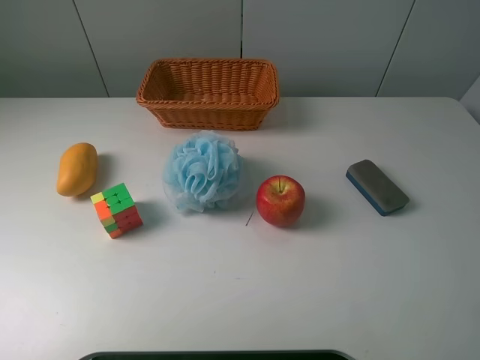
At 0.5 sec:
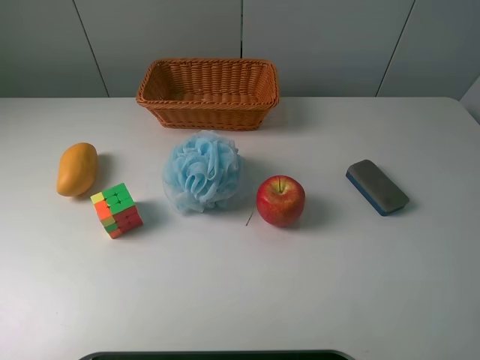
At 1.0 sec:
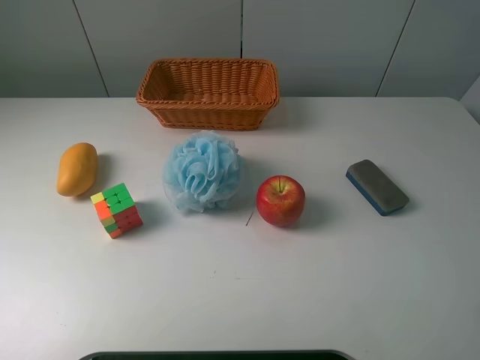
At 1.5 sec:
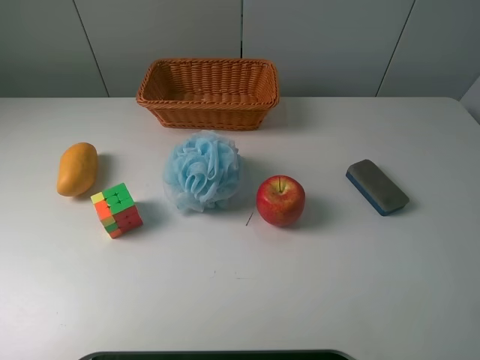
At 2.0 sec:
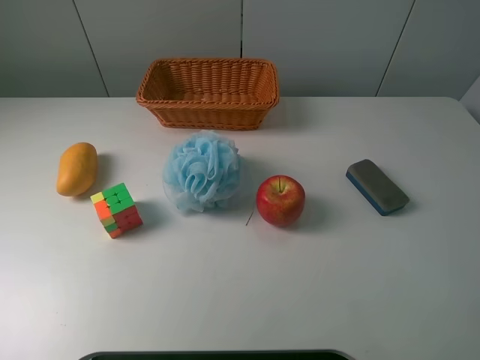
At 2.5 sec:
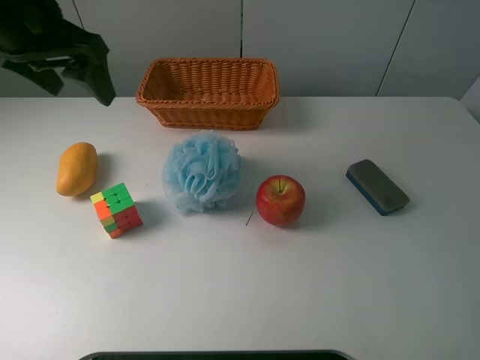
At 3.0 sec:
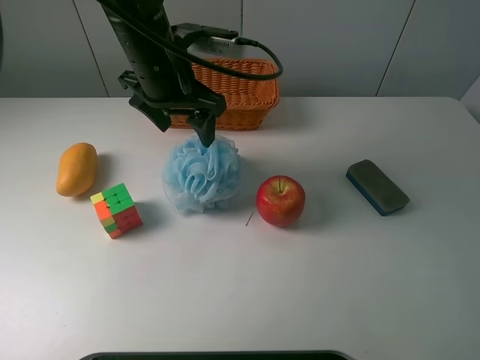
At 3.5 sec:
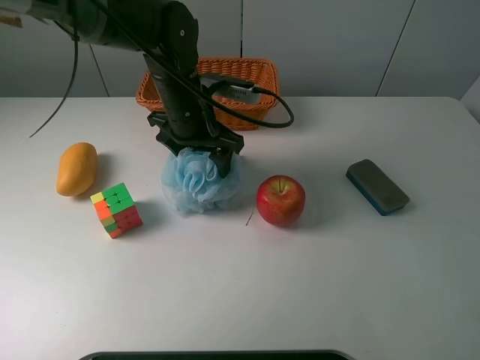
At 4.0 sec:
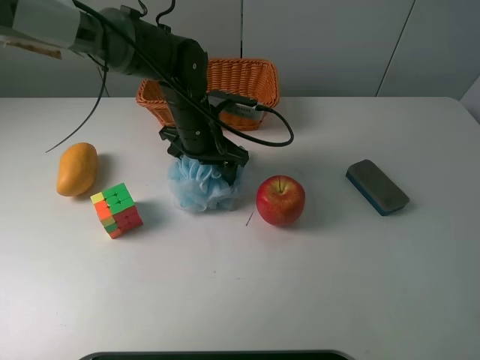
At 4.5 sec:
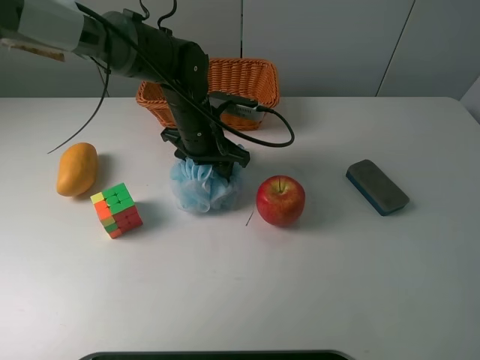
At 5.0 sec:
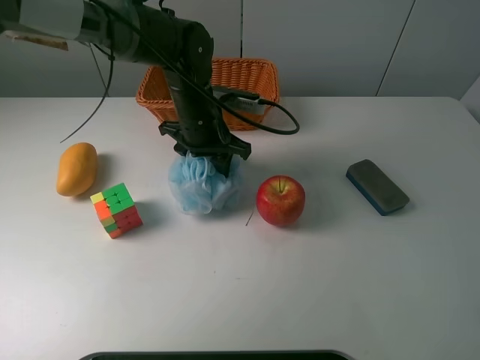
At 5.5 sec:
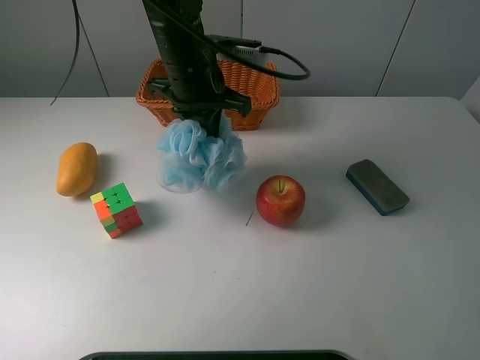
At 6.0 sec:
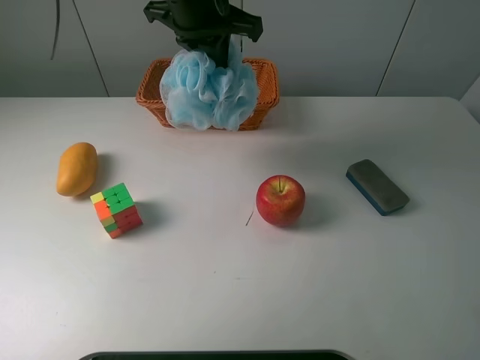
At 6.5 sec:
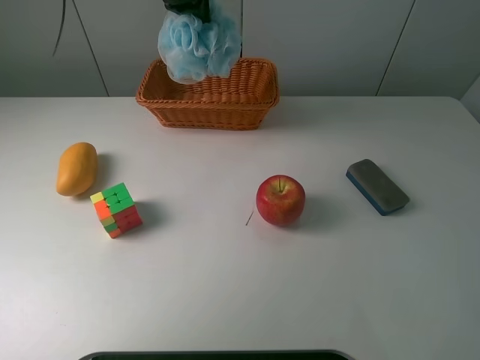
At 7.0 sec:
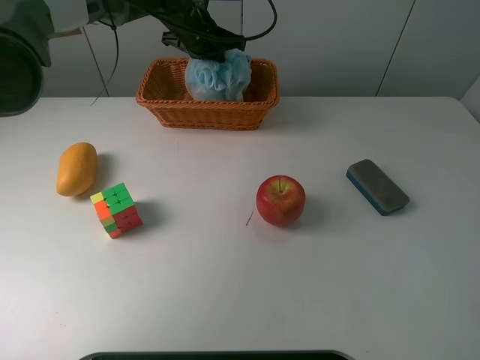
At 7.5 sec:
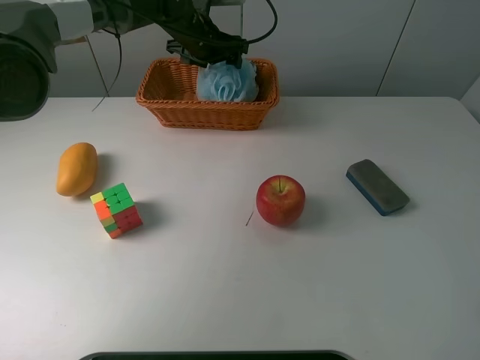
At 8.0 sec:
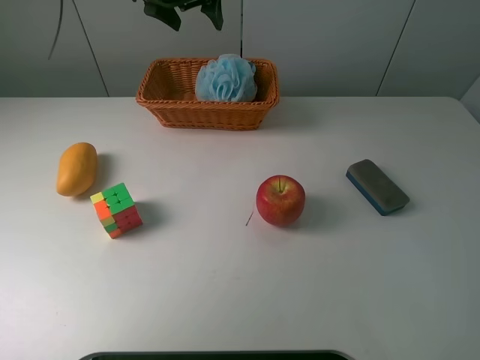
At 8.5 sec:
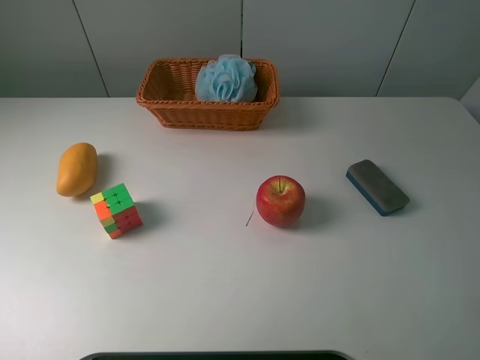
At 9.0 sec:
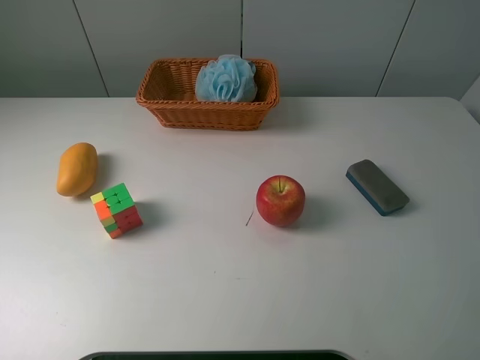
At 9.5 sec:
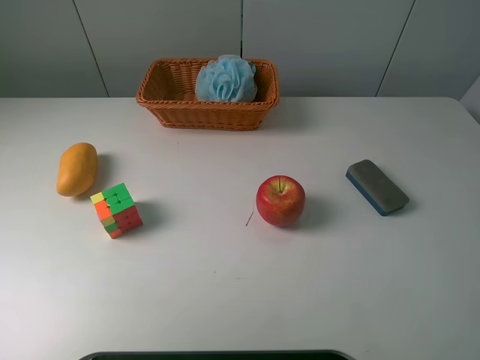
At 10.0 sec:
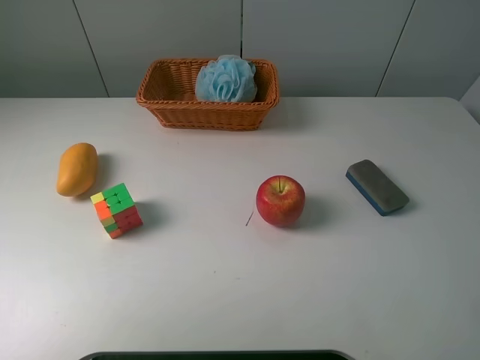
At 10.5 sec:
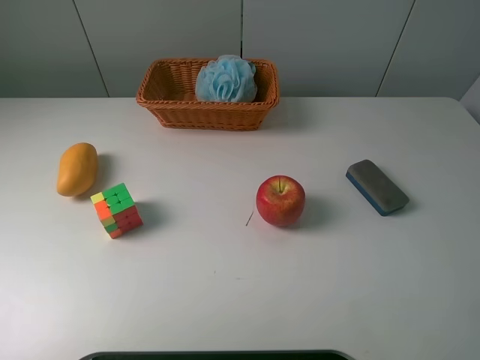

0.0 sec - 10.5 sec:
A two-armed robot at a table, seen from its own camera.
Task of the whole recording: use a picker to grab the item closest to the apple and place it in the basket.
Step, 0.0 sec - 4.5 sec: Grasp the shower sphere with the left gripper.
Step, 5.0 sec - 7.5 sec: Place the shower sphere into the basket with the left gripper.
2.0 sec - 4.0 sec: The left gripper shifts some 40 cm to the right, downward and forward.
4.0 sec - 6.5 sec: The left gripper heads upward and forward, covering roughly 20 cm, and closes its fingers.
6.5 sec - 8.5 sec: The left gripper shifts about 20 cm backward, upward and to the left, and opens.

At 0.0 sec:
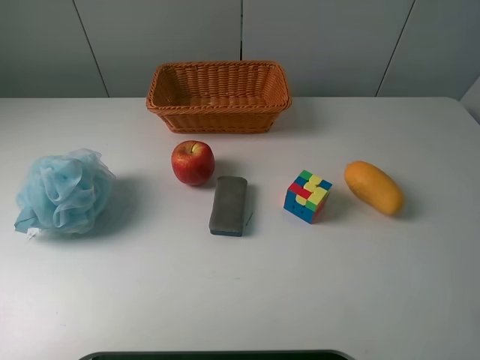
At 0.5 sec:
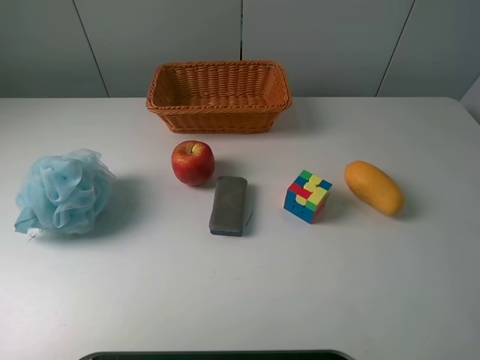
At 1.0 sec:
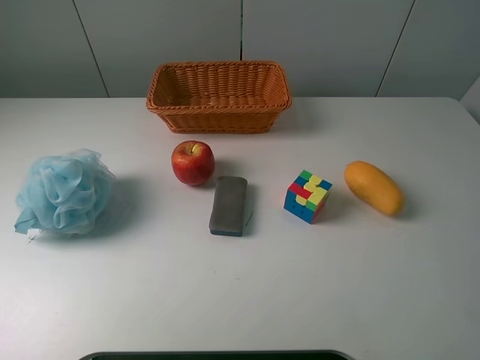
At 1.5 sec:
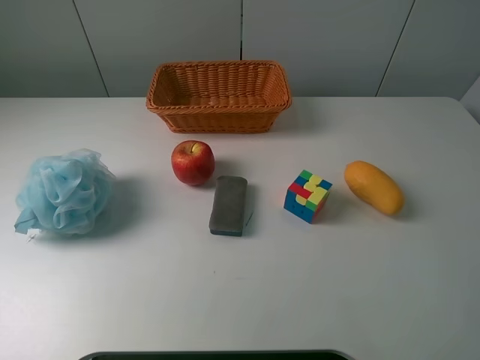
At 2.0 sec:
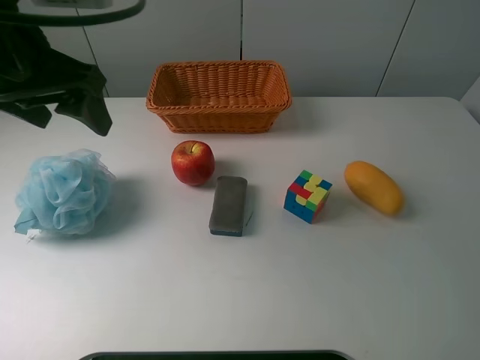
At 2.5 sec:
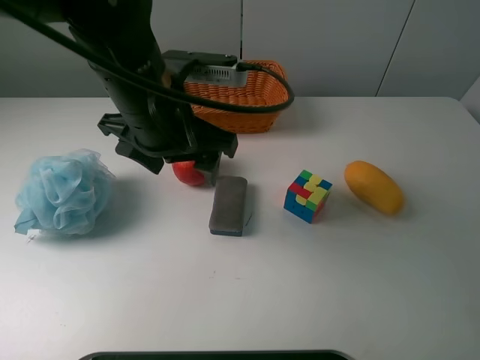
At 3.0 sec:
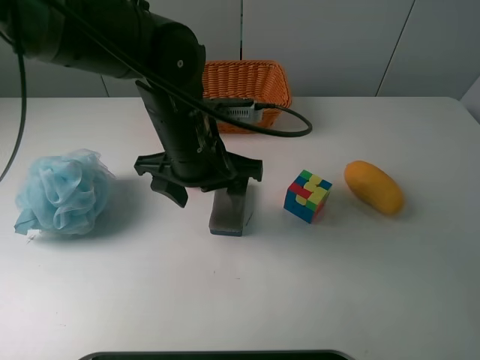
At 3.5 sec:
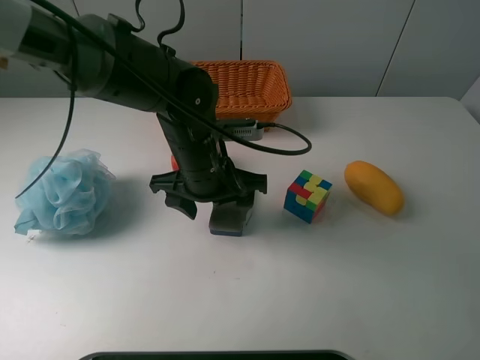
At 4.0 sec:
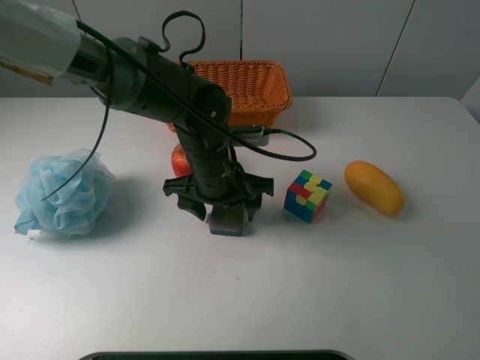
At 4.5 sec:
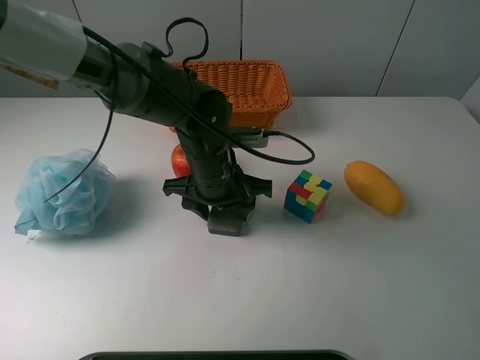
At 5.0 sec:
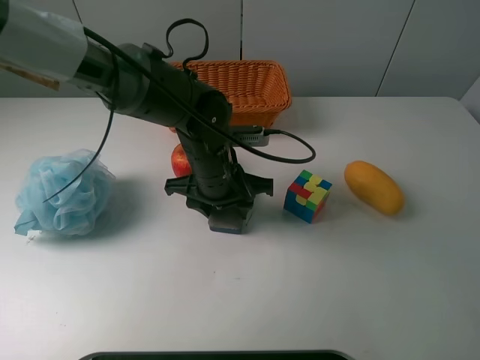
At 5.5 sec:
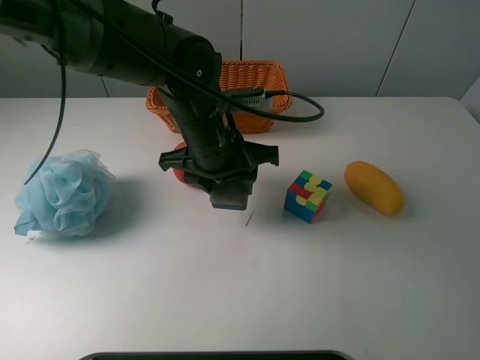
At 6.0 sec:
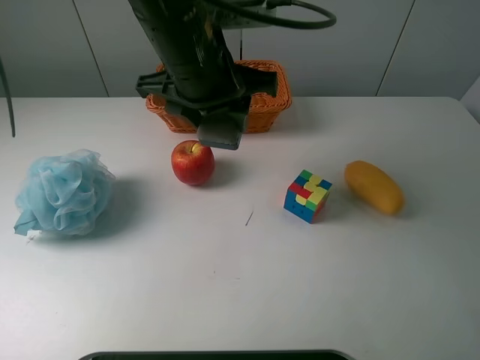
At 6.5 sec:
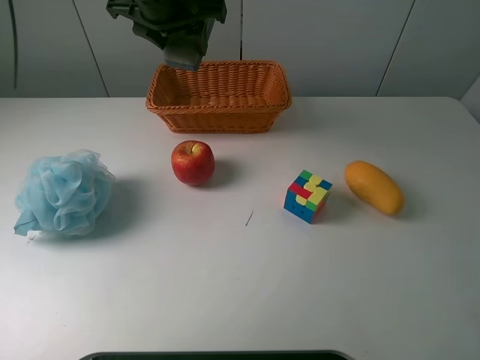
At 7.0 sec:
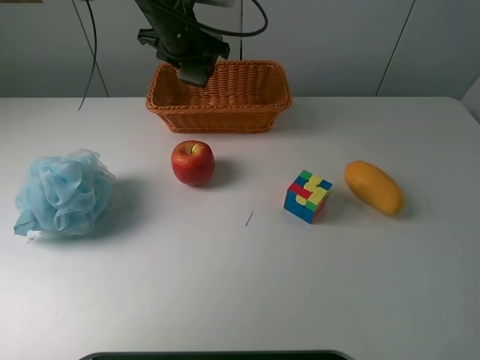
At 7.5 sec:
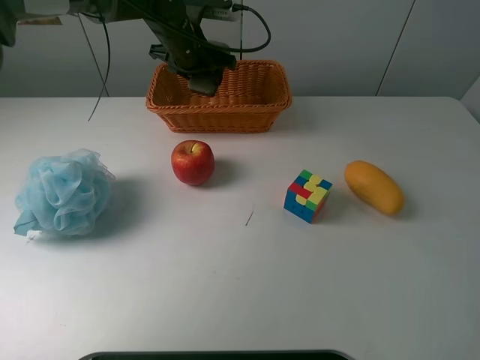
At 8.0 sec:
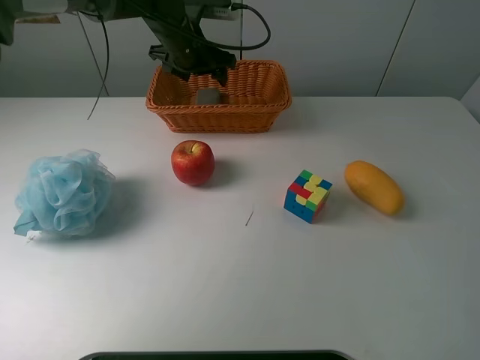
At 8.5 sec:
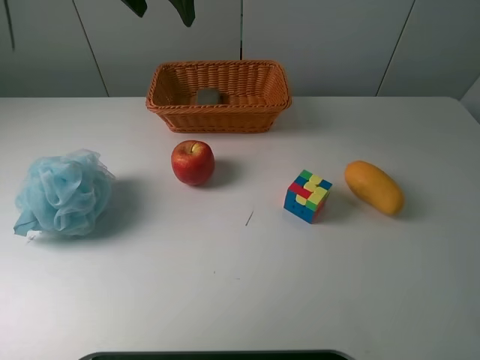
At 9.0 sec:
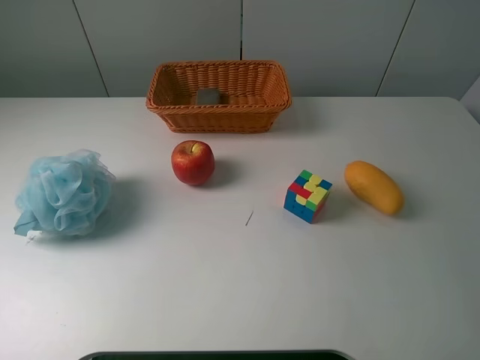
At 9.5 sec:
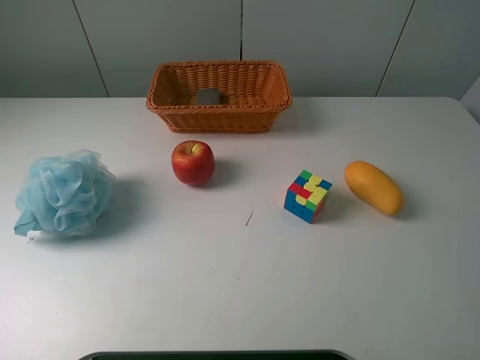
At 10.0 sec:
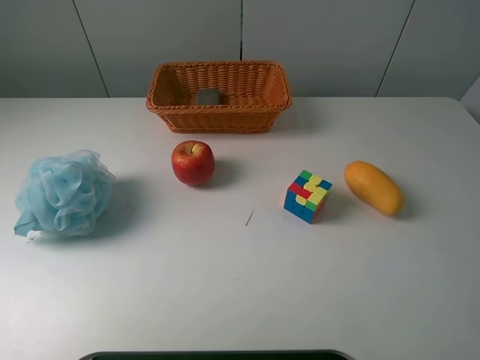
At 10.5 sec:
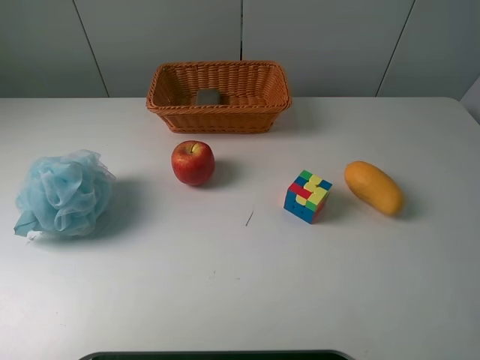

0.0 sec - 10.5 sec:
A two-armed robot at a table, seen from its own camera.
Task of the whole recording: use a picker to grab the item closest to the apple and place it in the basket.
Step, 0.0 sec - 4.5 sec: Grasp the chalkboard eraser with the left gripper.
Step, 5.0 sec - 8.0 sec: Place the chalkboard eraser into the basket with the left gripper.
0.0 sec - 2.0 sec: The left gripper goes about 30 cm forward and to the right.
2.0 sec - 4.0 sec: The left gripper moves downward and to the right, roughly 25 cm.
4.0 sec - 6.5 sec: The left gripper moves upward and forward, about 20 cm, and closes its fingers.
6.5 sec - 8.5 sec: The left gripper shifts roughly 5 cm upward, and opens.
